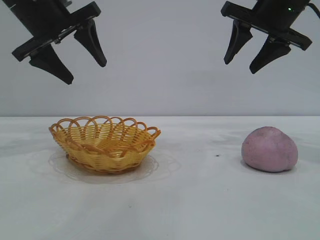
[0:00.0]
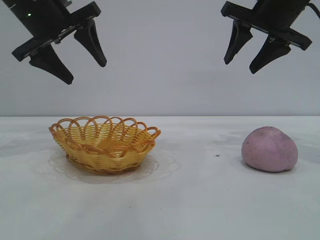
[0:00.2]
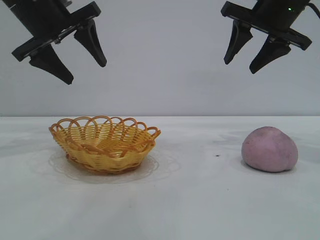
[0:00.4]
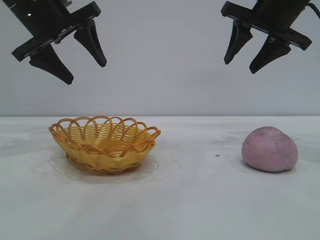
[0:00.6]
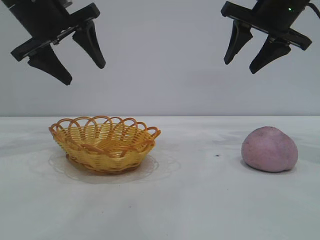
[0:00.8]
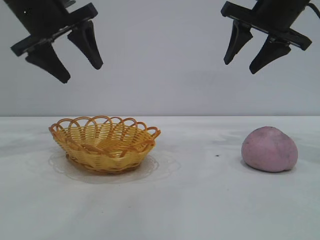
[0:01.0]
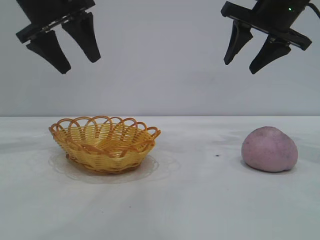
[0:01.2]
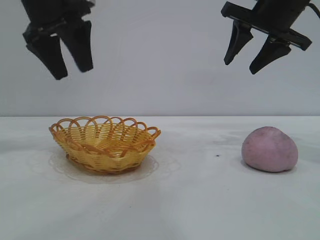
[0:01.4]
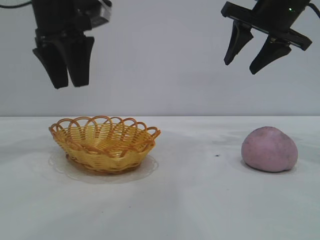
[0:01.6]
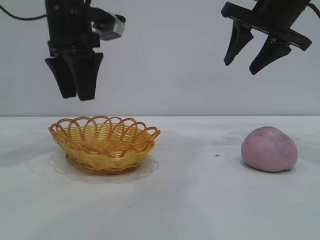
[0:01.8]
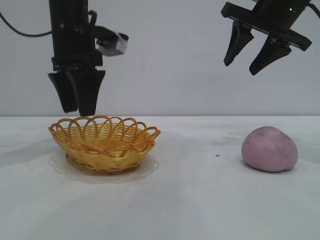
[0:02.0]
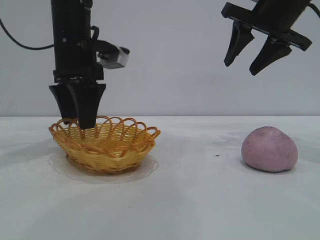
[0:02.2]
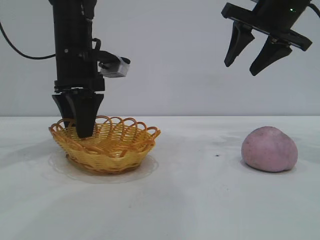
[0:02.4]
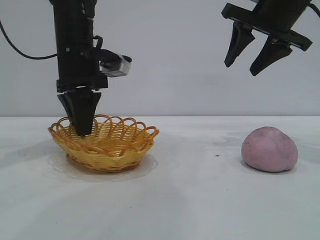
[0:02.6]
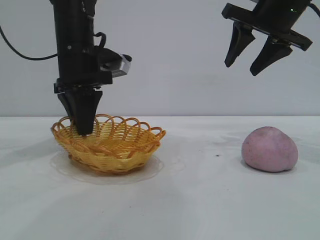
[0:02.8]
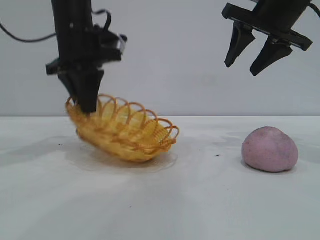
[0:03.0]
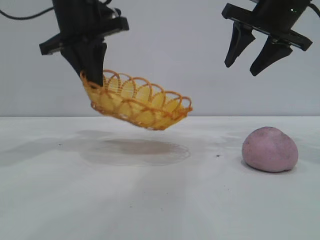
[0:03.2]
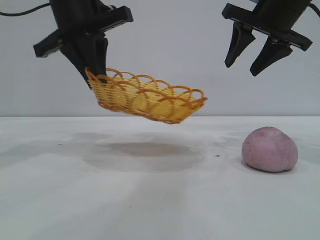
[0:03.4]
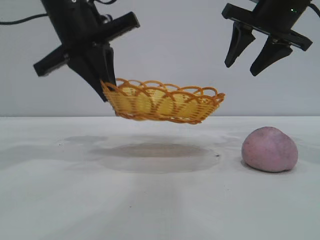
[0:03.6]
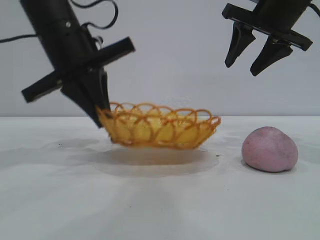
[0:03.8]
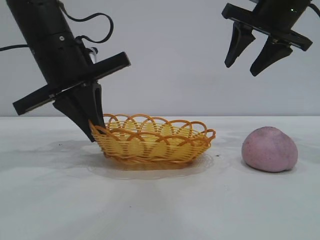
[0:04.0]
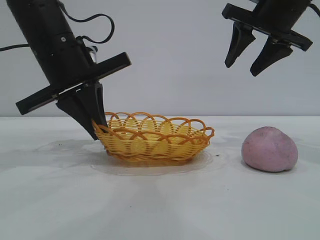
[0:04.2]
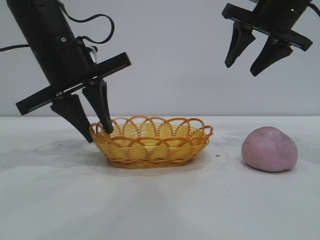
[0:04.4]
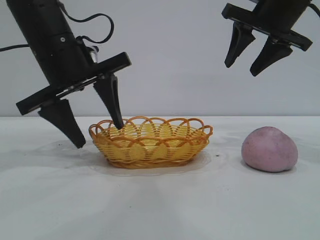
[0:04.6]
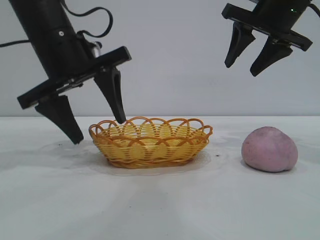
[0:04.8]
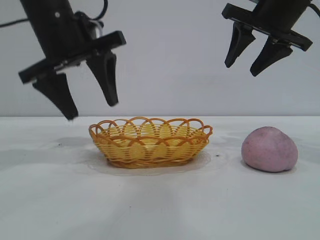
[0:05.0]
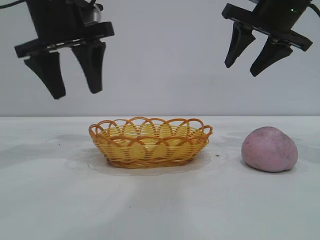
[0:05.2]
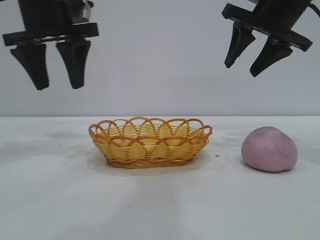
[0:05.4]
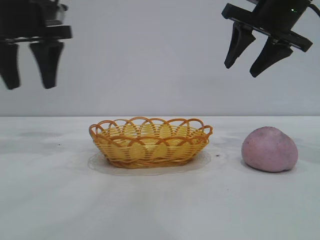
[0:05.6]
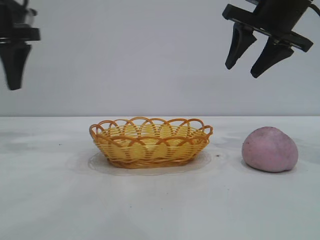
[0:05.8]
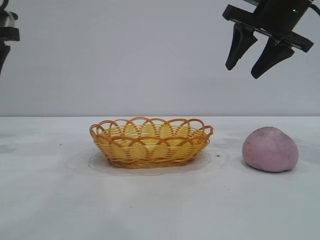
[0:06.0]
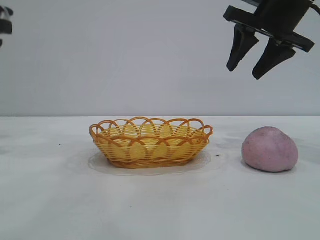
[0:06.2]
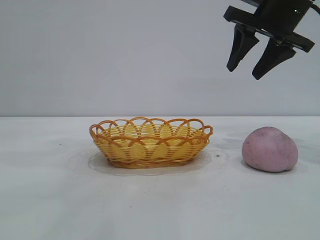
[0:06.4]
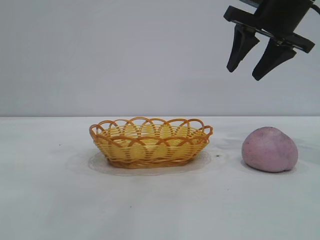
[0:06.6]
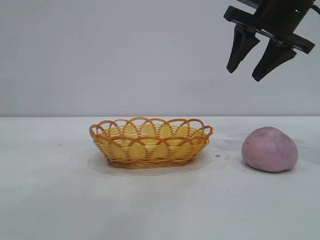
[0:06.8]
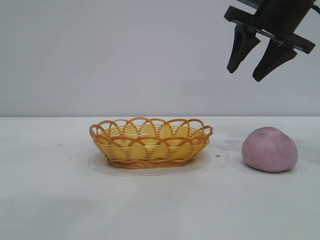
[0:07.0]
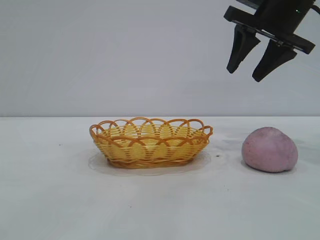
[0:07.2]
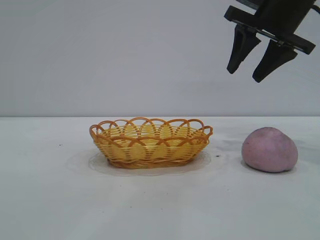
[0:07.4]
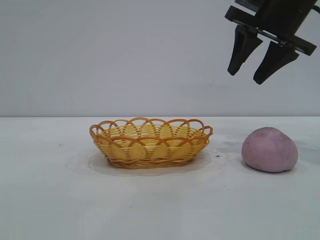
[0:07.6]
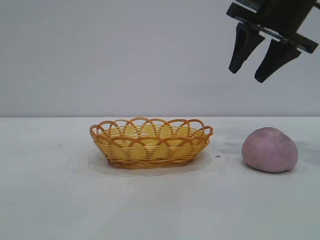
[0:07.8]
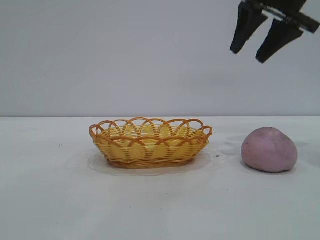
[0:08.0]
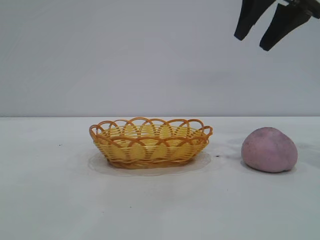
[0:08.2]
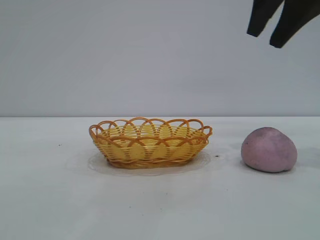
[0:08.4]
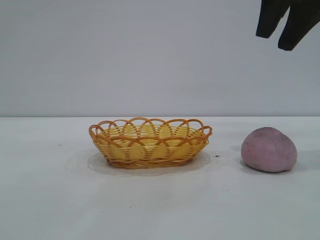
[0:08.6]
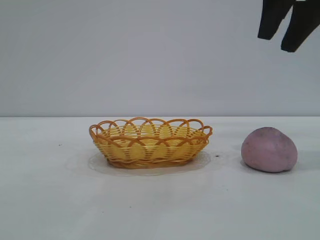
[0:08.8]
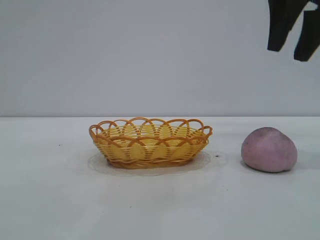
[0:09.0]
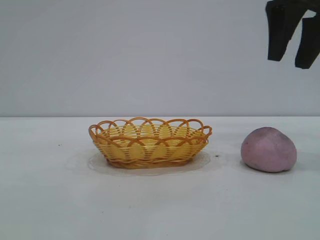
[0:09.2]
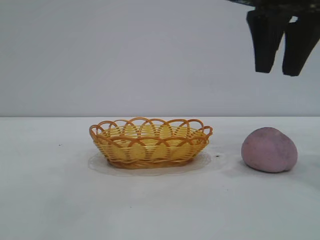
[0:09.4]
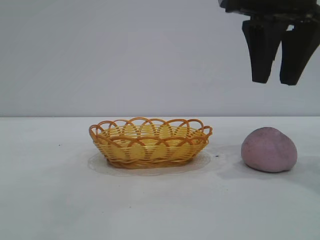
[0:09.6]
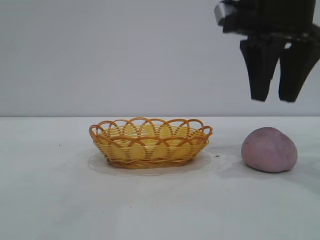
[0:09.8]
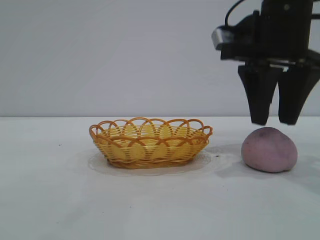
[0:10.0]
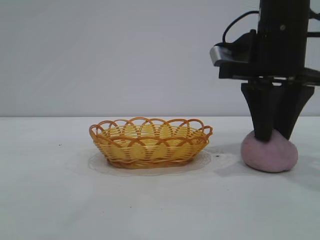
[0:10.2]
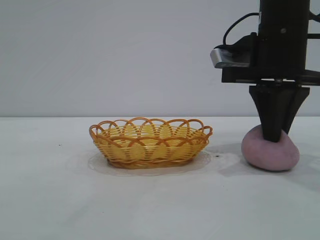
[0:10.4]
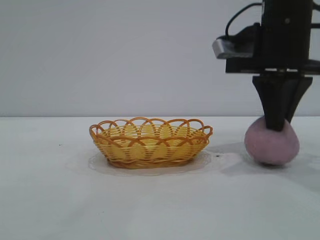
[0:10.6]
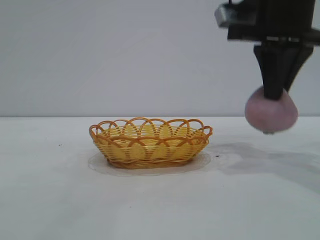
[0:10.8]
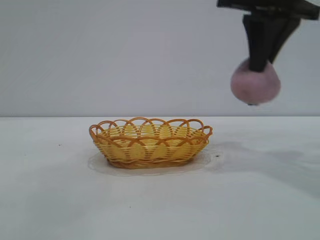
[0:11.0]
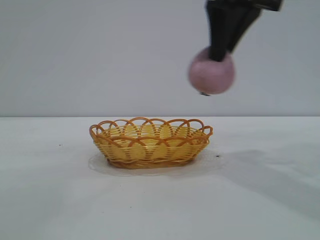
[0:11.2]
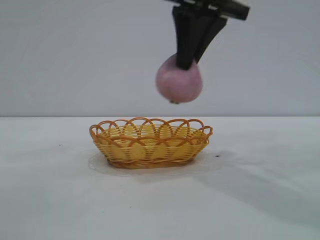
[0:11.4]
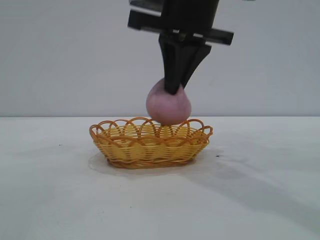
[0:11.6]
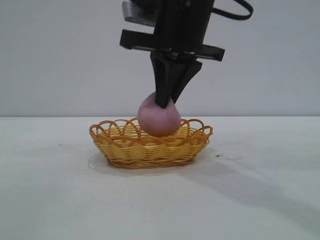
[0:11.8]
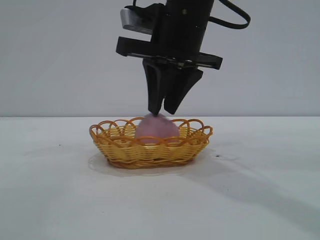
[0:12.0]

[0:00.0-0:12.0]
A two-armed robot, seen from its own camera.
Task of the whole recording: pick up the peach and put it into the basket.
Step, 0:00.0 to 0:05.2: Move the basket to the center of view.
Step, 0:05.4 to 0:10.8: Pick up the peach.
